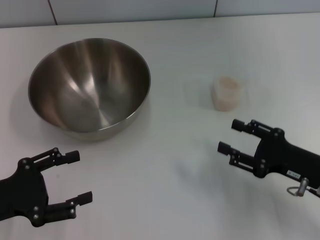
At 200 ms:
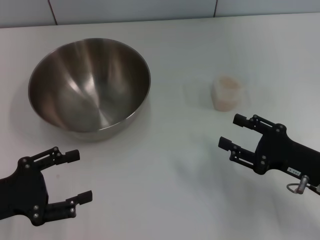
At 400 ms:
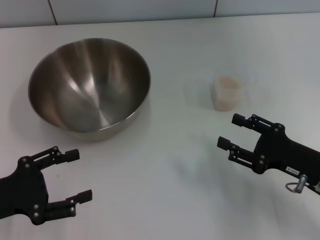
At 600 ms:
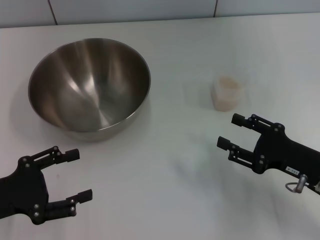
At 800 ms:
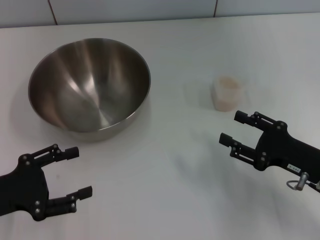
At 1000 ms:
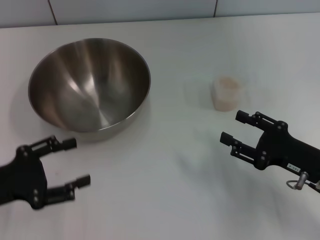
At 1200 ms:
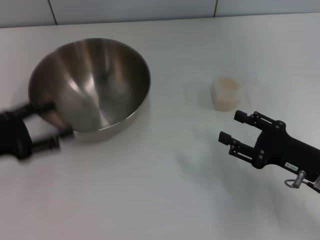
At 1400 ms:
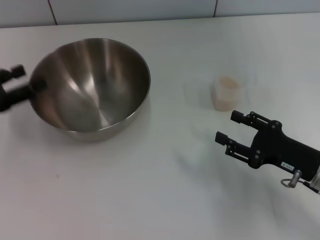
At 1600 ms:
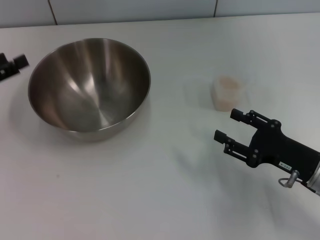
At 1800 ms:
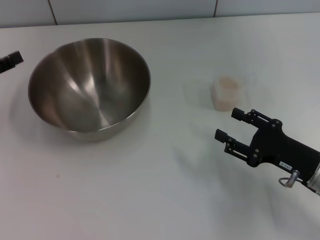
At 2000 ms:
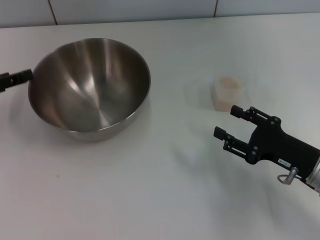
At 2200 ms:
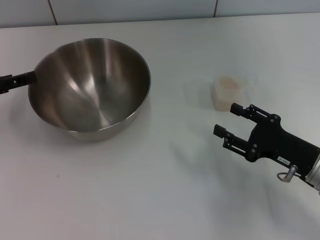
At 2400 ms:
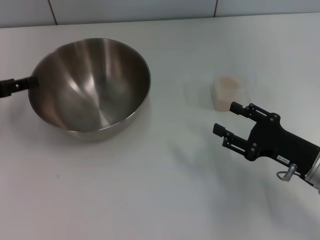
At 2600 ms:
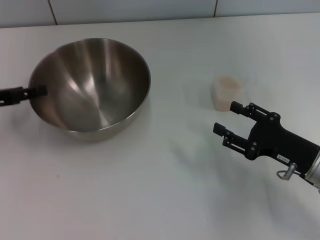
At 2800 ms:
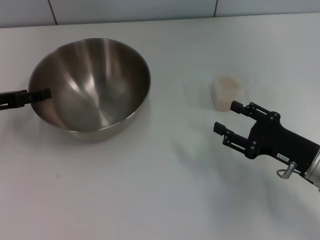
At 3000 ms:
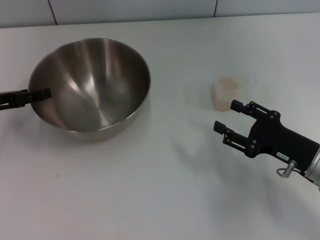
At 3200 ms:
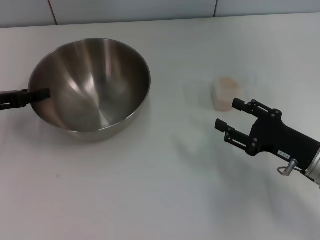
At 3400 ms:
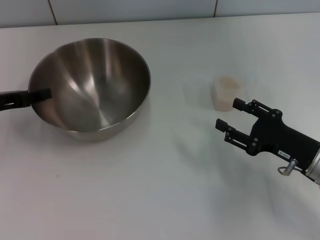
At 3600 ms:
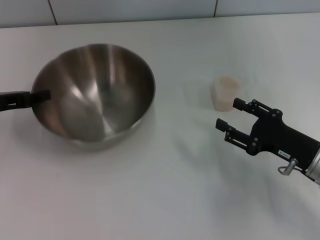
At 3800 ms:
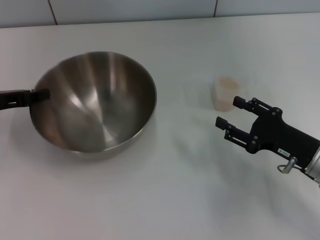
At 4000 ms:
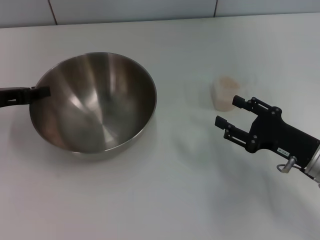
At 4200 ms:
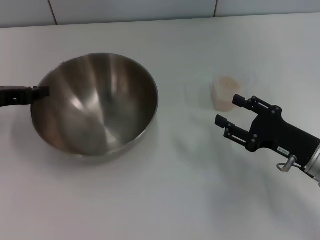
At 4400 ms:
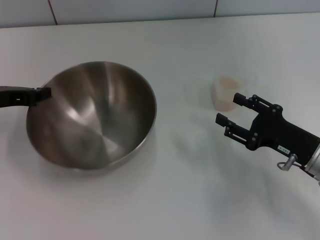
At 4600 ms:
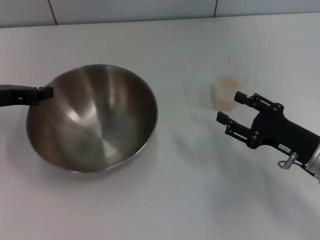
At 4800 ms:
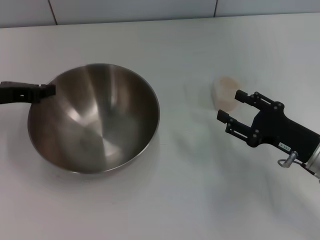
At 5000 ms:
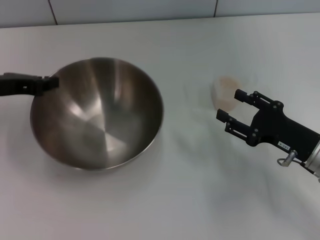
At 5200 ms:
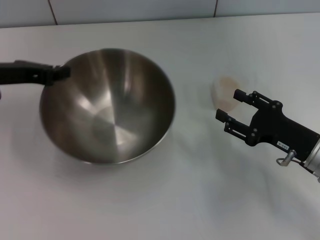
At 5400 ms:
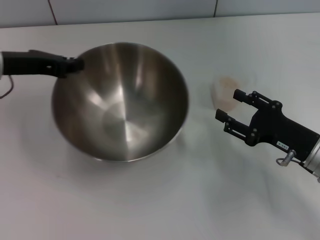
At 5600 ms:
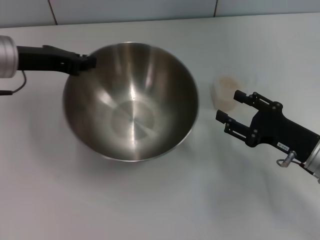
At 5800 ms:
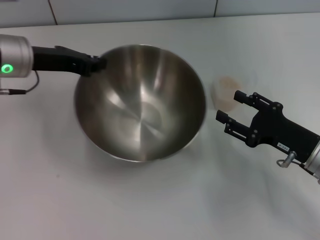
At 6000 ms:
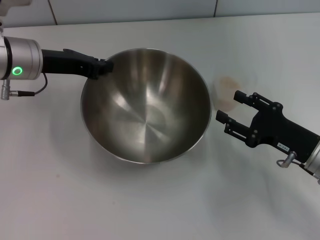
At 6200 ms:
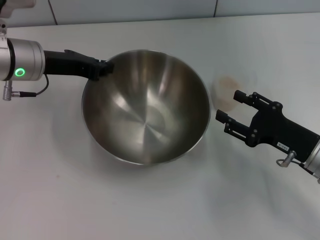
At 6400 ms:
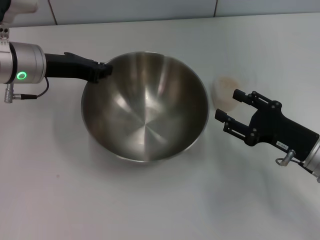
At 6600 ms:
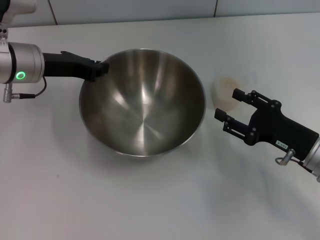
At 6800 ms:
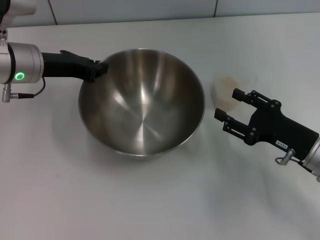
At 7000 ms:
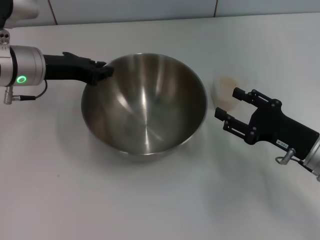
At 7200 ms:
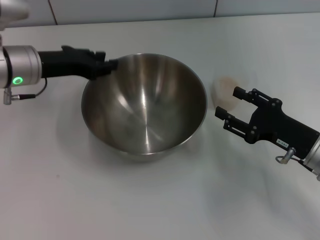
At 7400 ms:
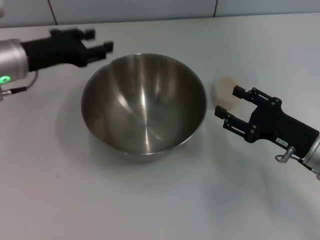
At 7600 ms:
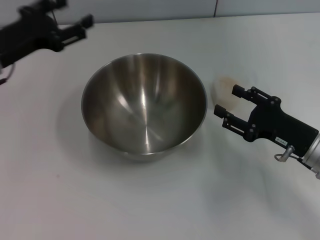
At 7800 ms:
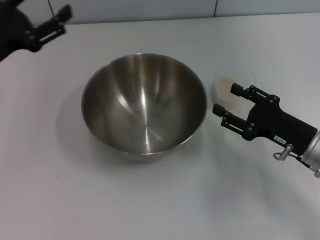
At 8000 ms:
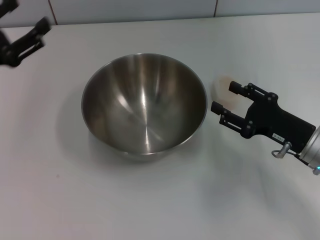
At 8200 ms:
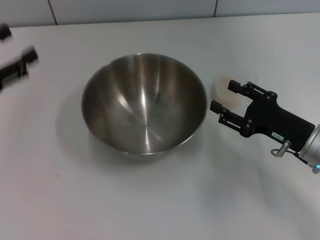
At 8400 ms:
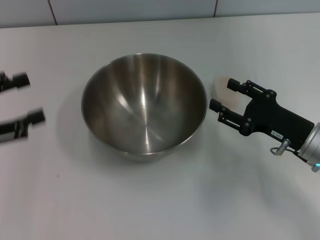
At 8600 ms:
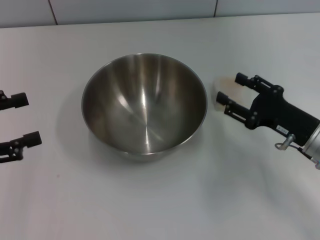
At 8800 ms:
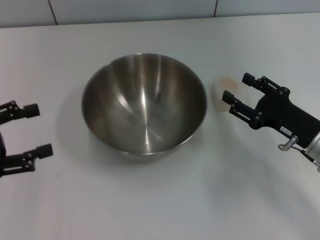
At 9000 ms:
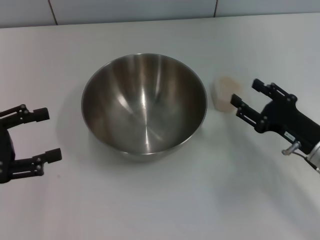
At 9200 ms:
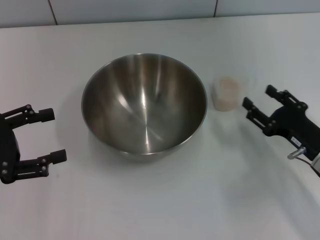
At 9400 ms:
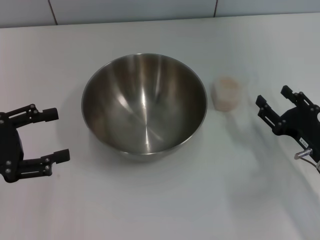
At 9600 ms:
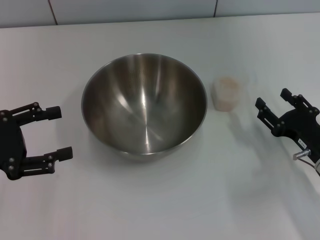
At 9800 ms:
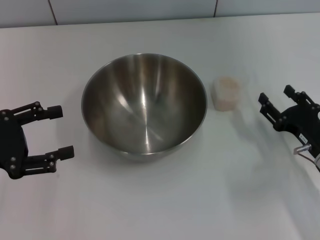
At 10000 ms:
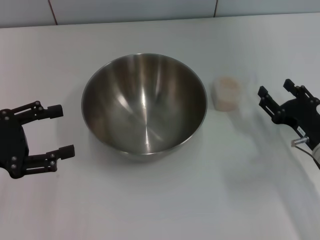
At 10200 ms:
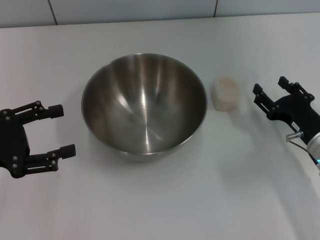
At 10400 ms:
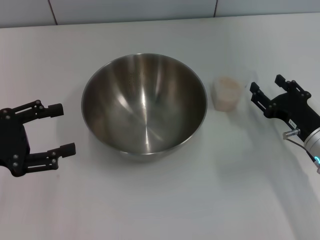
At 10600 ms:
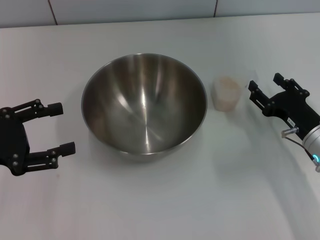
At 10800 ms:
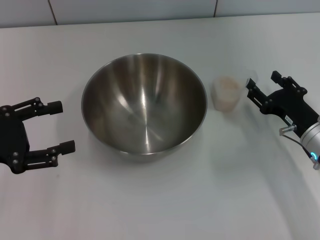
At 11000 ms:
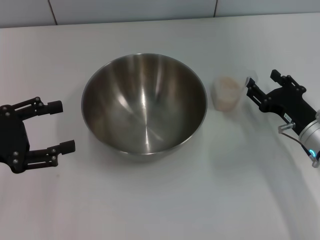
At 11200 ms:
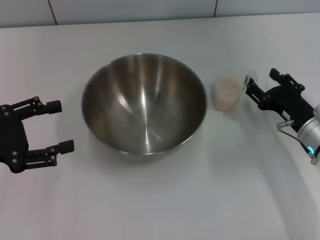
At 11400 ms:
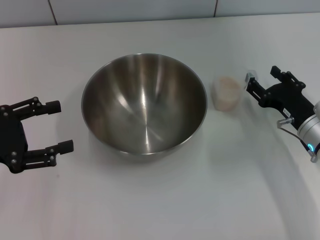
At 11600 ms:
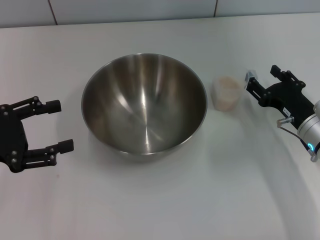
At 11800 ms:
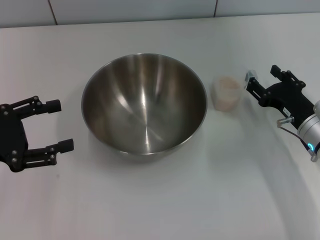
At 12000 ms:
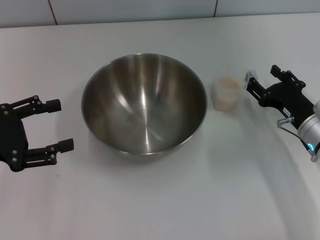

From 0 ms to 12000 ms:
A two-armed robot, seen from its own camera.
Task of the whole recording: Place the bowl in the middle of the table with one hand and pour the rice from the grain cup into it with the other hand.
Step, from 0 ms to 5200 ms: Pick up the bowl with the left gripper.
Step, from 5400 ms to 8200 ms: Place the bowl in the center of view with the left gripper.
From 0 ms to 1600 ms: The left gripper travels forward by approximately 10 cm.
From 3000 ms to 4400 ms: The left gripper closes.
From 4400 ms to 6000 ms: The left gripper is displaced to the right and forward by about 10 cm.
From 6000 ms to 7600 ms: The left gripper changes place by some 5 cm, and opens up.
From 7600 ms to 9000 ms: The left gripper moves backward and to the left, approximately 15 cm.
From 9000 ms to 12000 ms: The grippers stay close to where they were, moving slightly.

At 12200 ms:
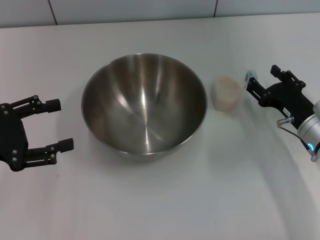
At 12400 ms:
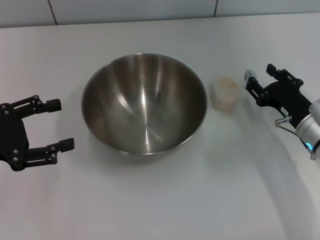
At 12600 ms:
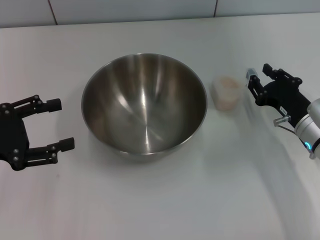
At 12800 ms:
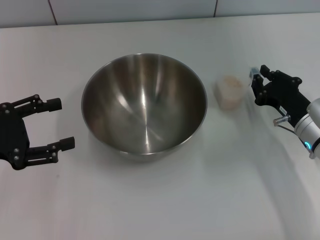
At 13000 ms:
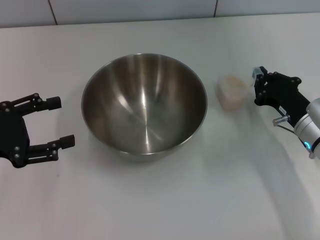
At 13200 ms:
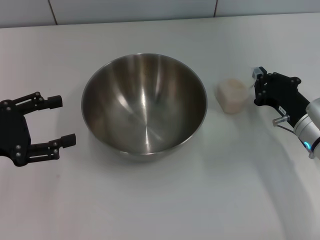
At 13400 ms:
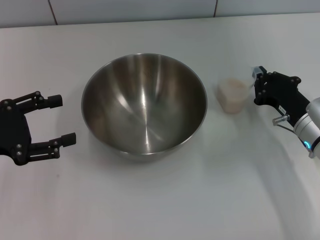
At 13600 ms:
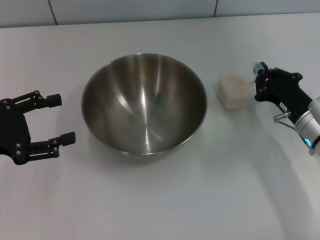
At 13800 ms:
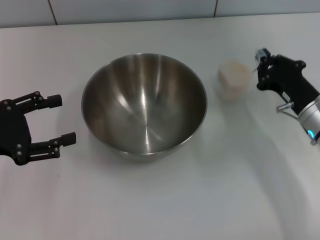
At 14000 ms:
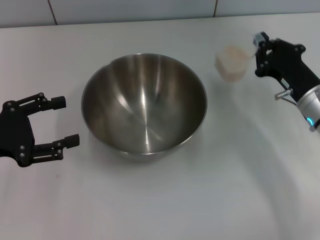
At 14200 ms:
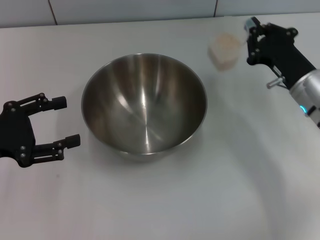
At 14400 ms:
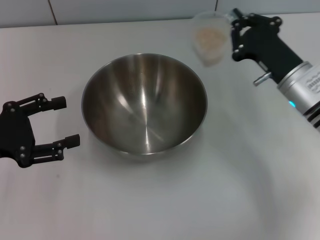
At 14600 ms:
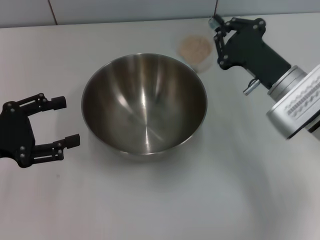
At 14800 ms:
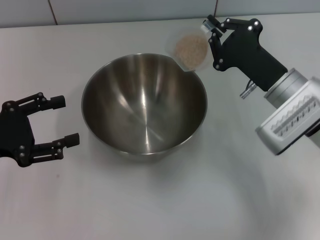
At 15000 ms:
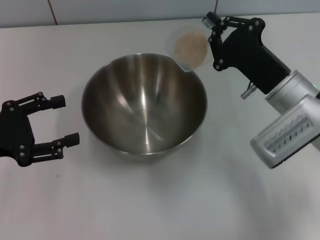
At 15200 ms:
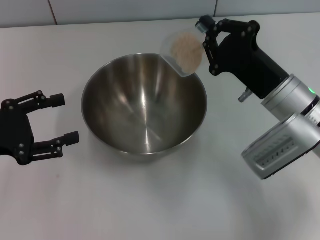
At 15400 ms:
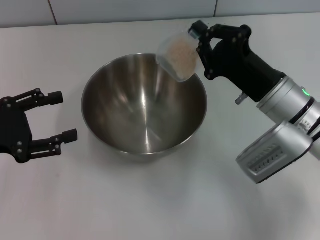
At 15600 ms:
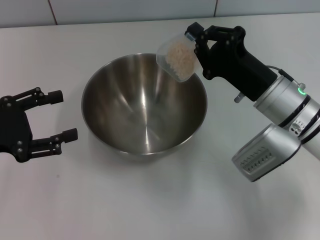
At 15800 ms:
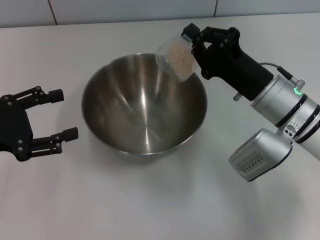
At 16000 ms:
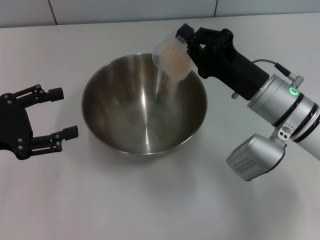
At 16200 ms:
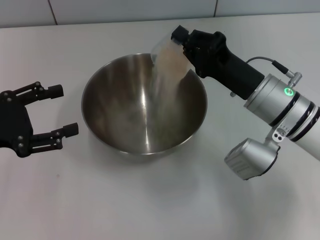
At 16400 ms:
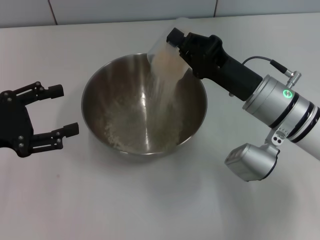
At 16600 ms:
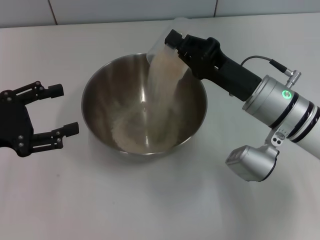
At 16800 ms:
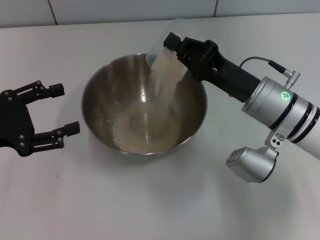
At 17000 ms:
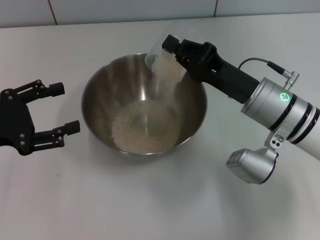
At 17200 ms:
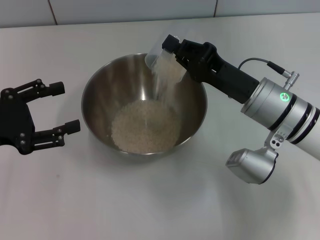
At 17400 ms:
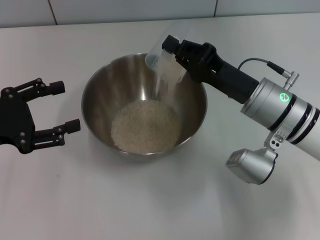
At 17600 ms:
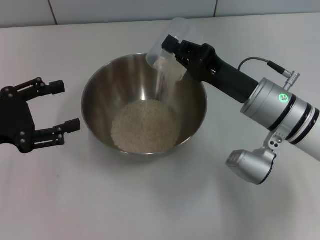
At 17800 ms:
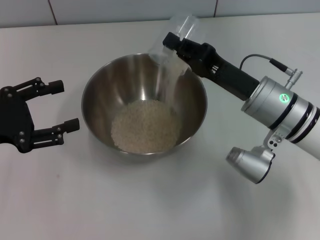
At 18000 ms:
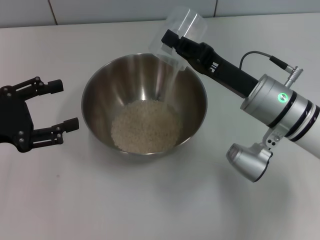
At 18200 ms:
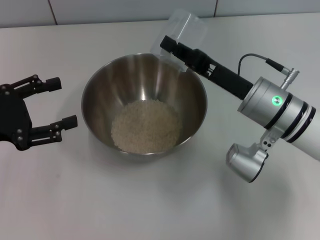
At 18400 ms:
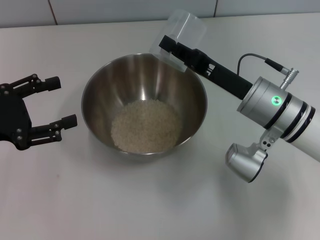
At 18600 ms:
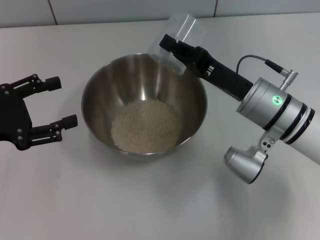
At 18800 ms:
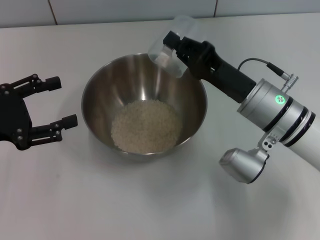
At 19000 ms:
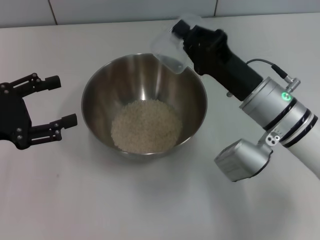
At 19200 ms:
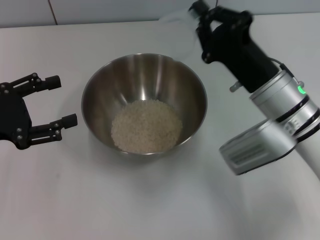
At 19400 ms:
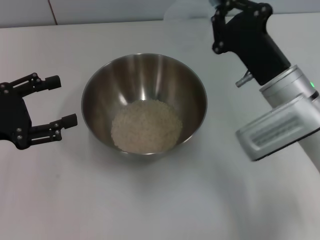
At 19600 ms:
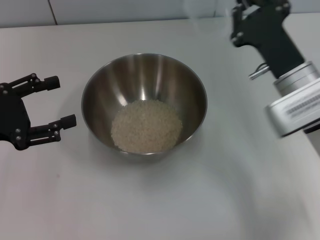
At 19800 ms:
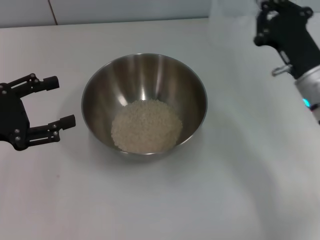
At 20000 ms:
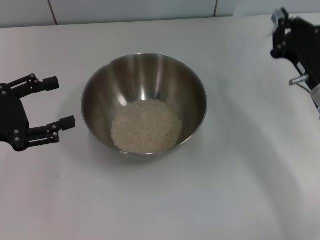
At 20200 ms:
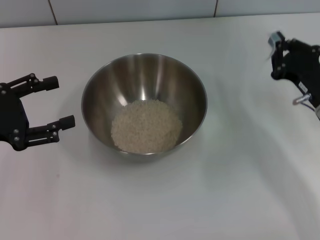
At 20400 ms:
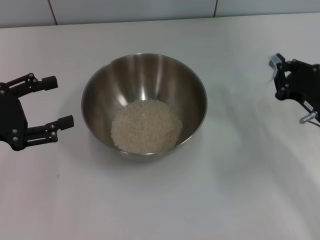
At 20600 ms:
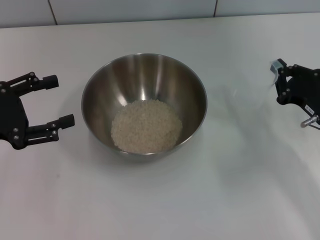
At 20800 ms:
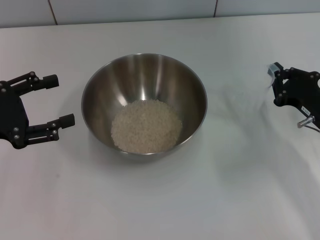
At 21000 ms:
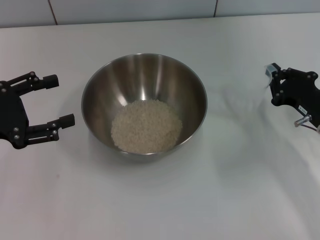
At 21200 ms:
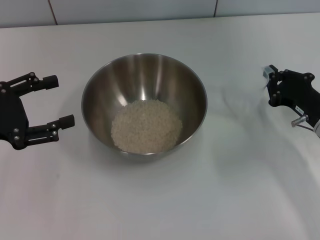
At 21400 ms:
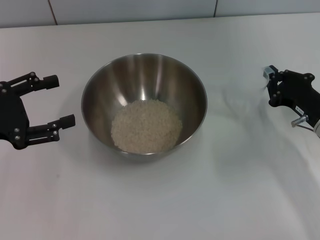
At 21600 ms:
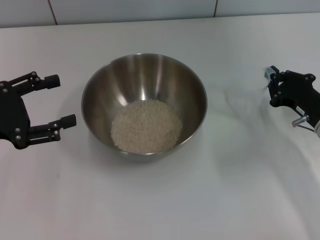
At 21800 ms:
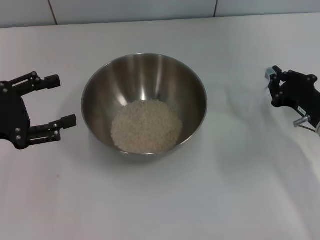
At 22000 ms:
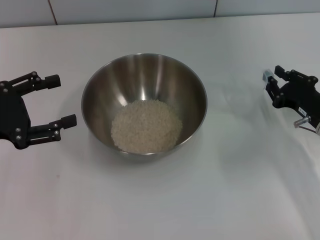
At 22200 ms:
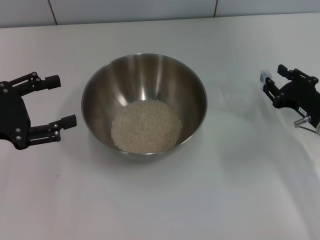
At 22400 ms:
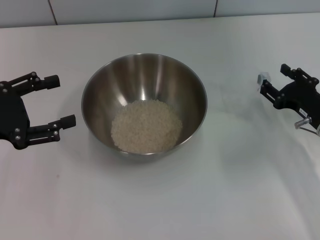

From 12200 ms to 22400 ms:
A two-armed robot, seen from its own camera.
Task of the whole recording: Place the bowl in the middle of the table with one hand and pour the rice from the grain cup into it with the other hand.
Step, from 12200 ms to 14200 ms: Pick up the cup with rice in it with the right gripper.
Step, from 14400 ms to 19400 ms: Pour the rice from the cup into the bowl with the right gripper.
From 12200 ms to 13600 ms: The right gripper closes.
From 13600 ms to 15200 ms: The right gripper shifts roughly 10 cm to the left and upward.
From 16600 ms to 18000 ms: The grippers stay close to where they were, moving slightly.
From 19400 ms to 21000 ms: The right gripper shifts about 15 cm to the right and downward.
From 21000 ms to 22400 ms: The right gripper opens.
